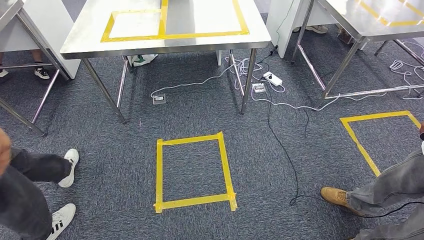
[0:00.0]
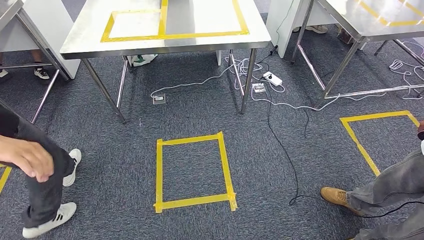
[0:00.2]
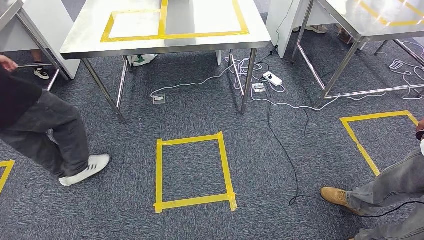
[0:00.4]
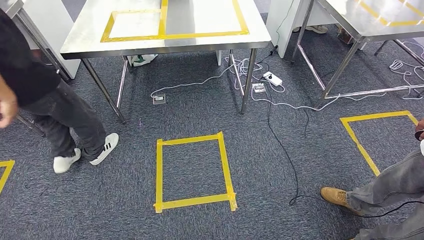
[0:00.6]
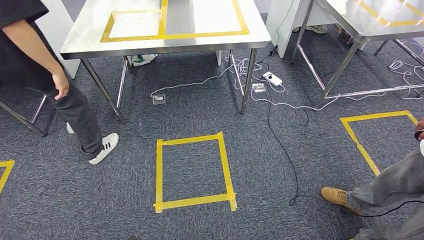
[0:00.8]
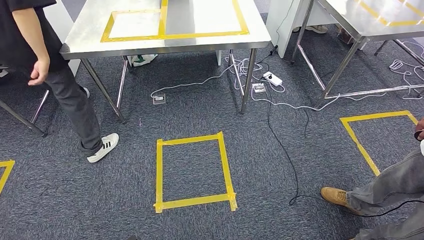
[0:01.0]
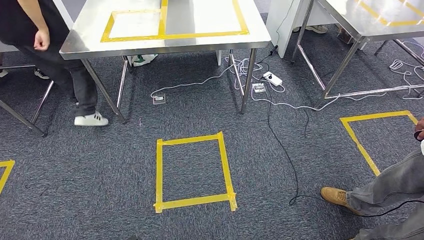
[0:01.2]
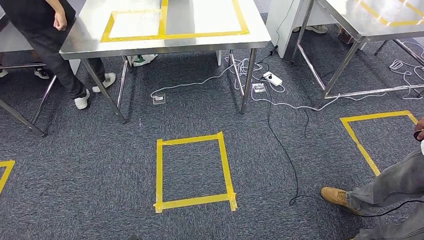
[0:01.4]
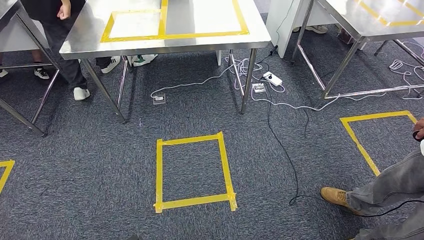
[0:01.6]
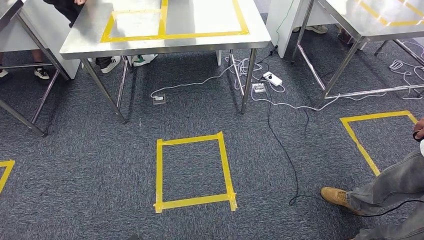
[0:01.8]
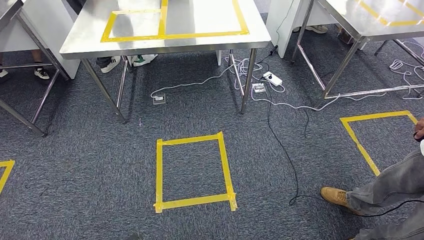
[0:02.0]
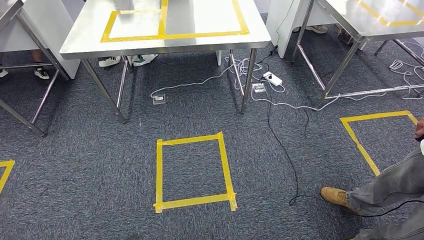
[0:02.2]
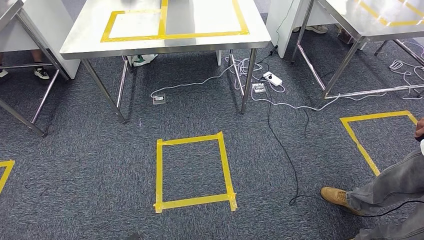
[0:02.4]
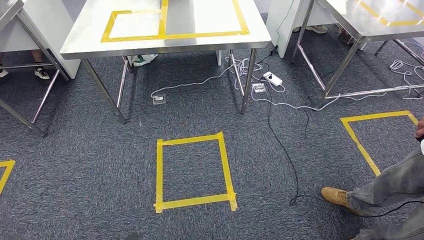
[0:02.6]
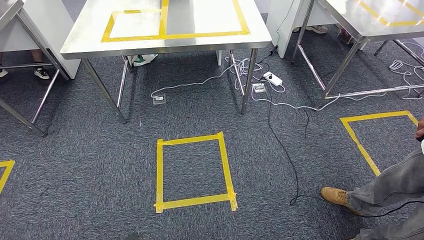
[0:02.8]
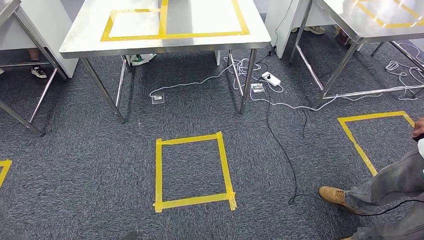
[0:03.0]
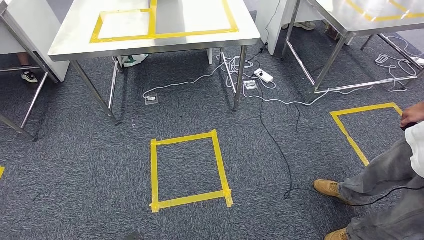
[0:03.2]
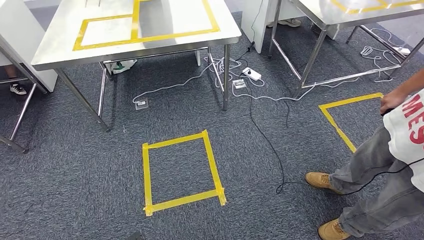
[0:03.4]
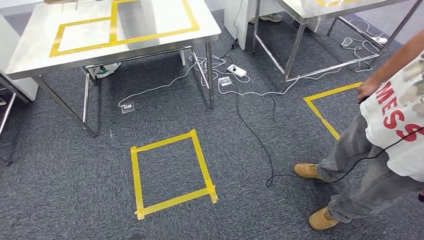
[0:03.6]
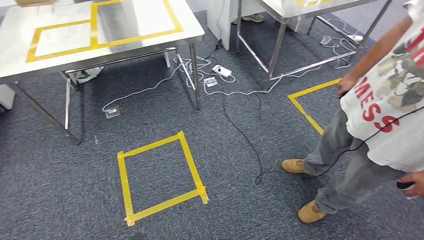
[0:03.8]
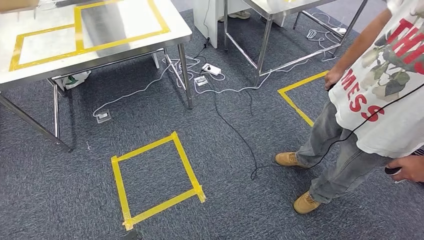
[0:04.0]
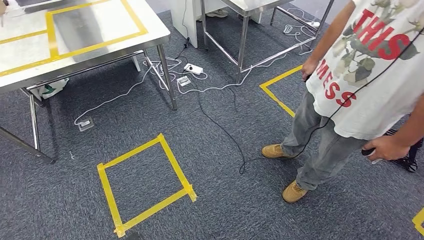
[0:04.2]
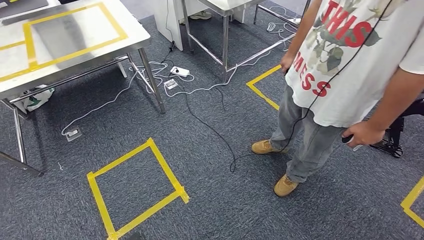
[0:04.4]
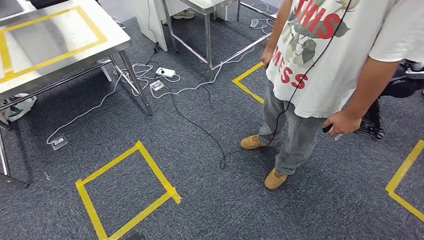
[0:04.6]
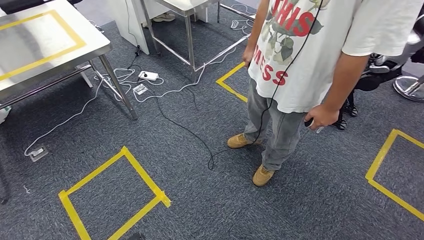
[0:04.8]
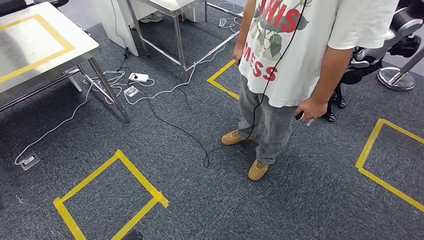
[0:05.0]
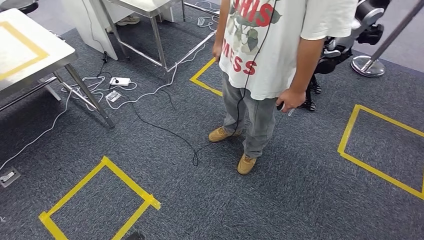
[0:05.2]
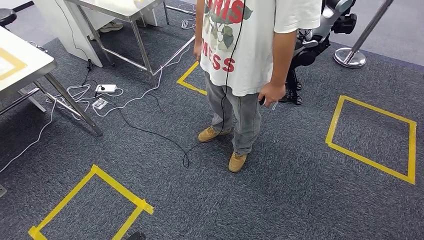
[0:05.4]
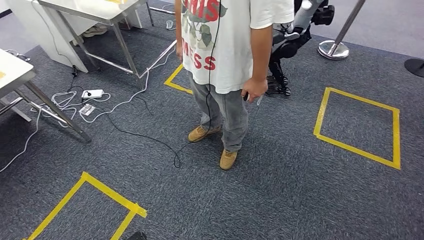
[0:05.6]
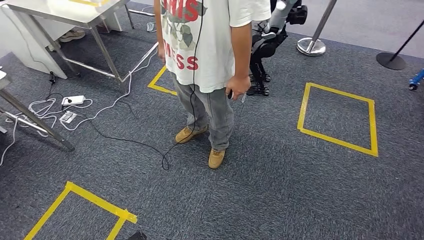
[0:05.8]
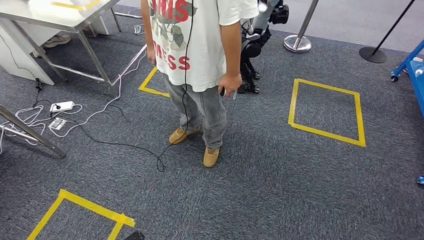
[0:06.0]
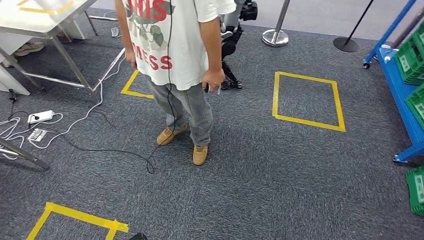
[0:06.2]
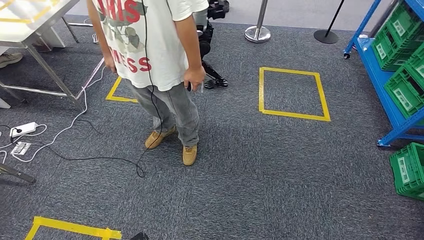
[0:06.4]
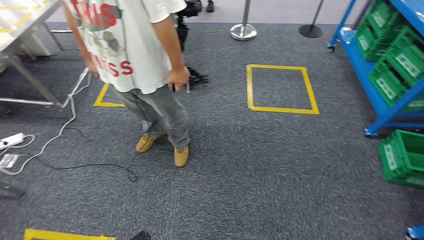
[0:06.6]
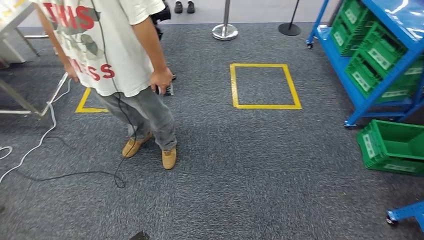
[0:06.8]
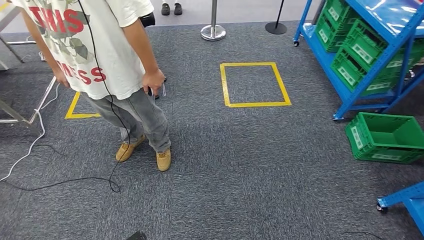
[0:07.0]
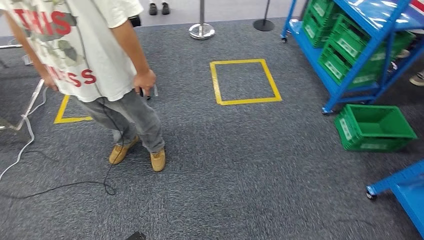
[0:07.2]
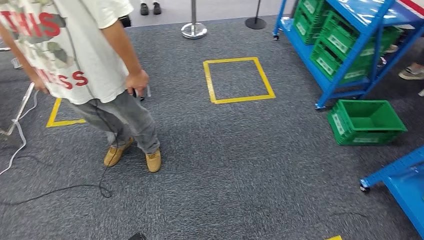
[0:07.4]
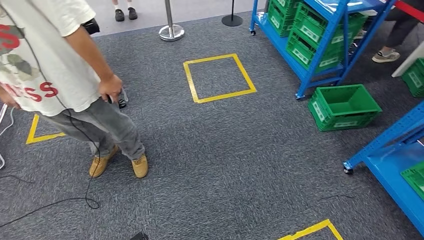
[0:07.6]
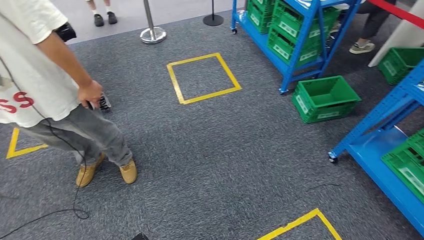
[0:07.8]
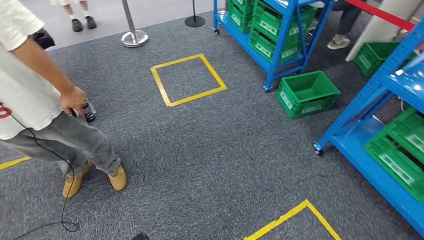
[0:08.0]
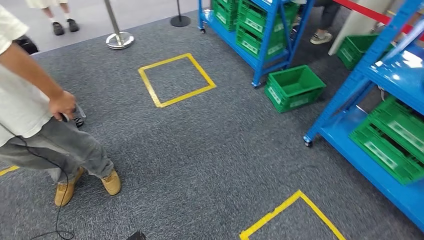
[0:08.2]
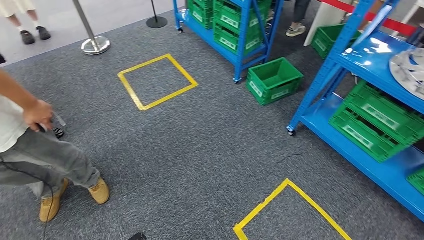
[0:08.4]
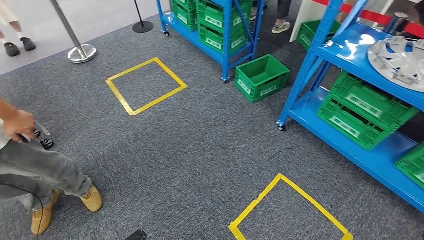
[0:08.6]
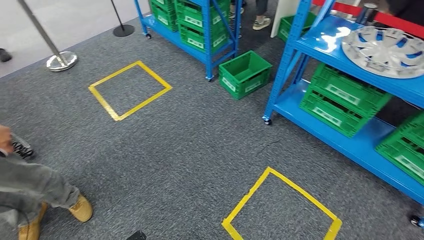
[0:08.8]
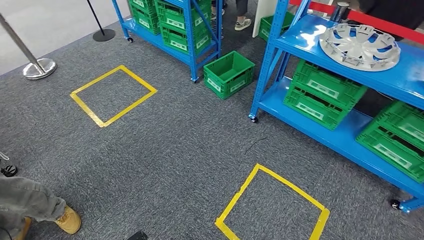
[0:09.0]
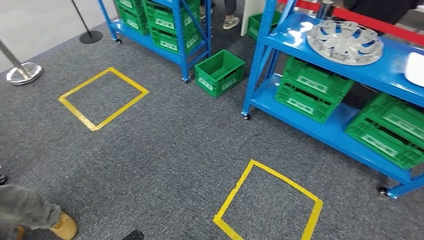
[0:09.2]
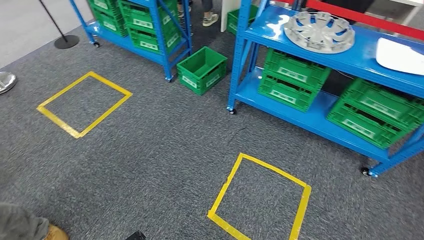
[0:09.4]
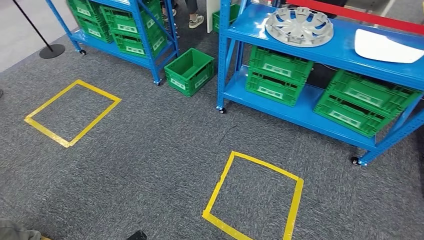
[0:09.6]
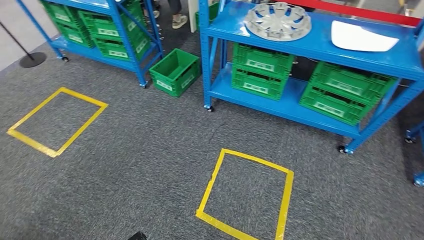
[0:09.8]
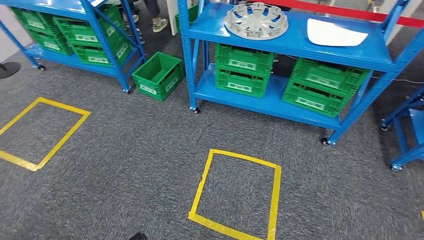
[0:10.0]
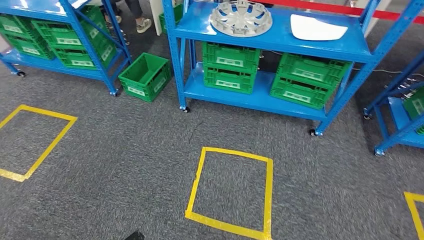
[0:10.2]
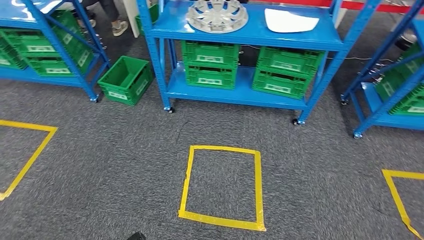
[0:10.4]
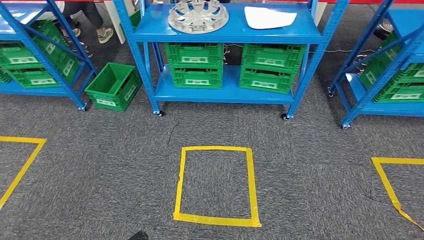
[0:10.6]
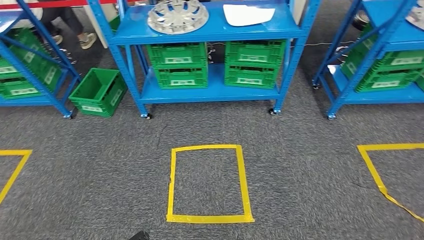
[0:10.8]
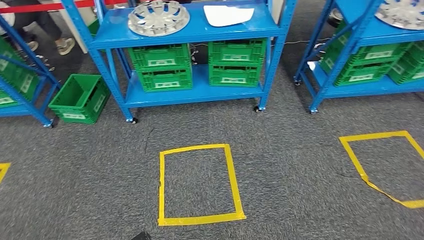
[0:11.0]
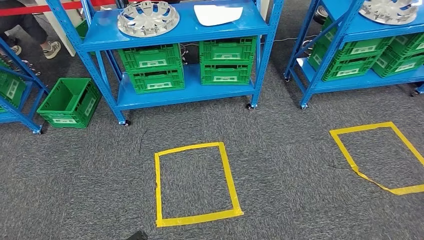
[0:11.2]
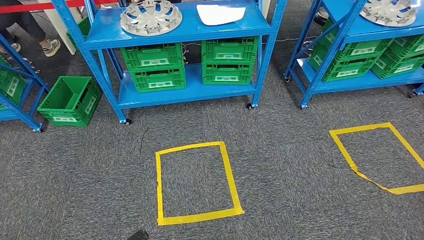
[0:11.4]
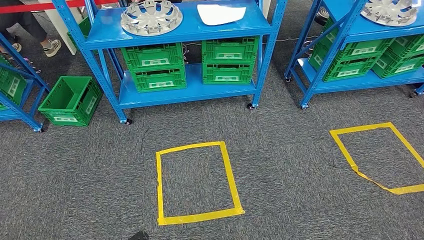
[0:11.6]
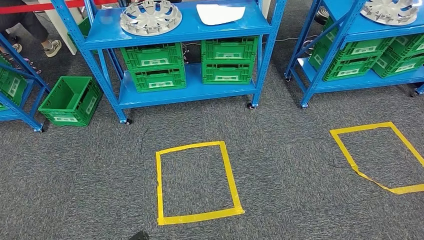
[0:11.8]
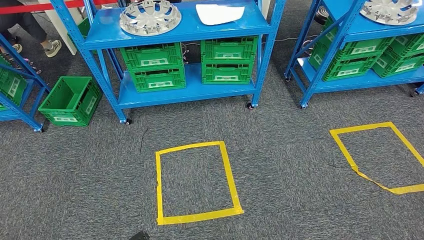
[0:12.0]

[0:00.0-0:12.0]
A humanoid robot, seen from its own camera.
0:00.0 to 0:03.0: The hands move only a little.
